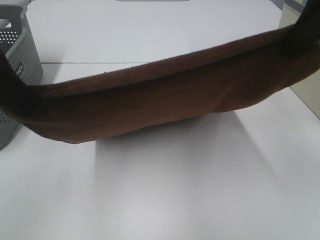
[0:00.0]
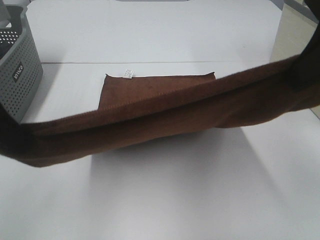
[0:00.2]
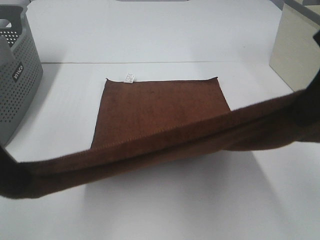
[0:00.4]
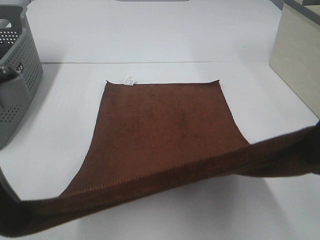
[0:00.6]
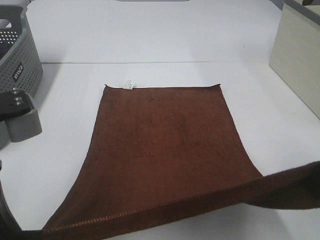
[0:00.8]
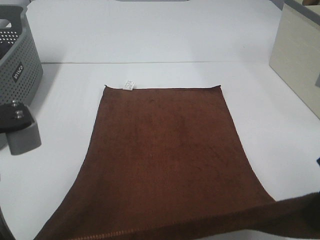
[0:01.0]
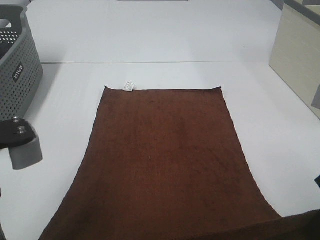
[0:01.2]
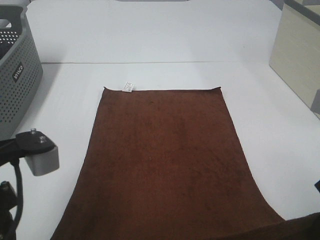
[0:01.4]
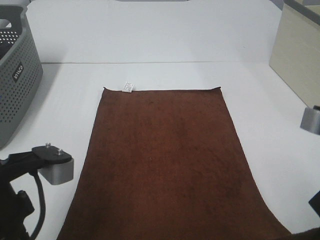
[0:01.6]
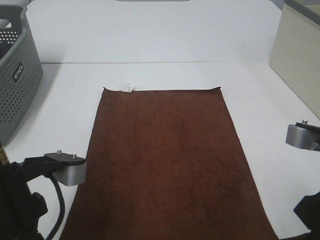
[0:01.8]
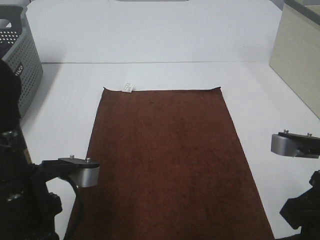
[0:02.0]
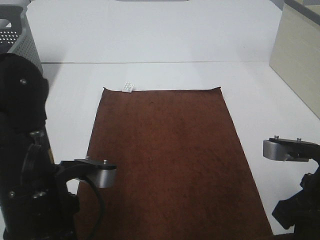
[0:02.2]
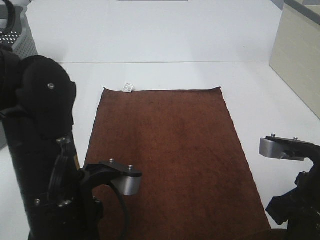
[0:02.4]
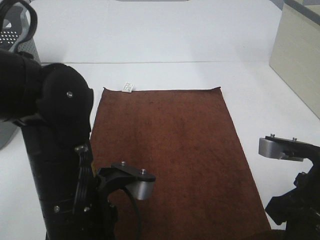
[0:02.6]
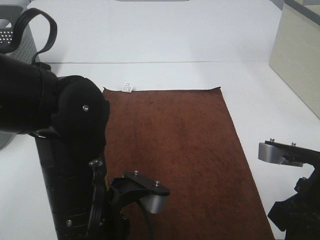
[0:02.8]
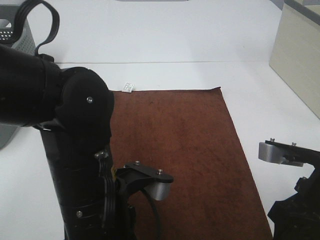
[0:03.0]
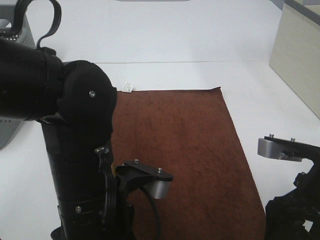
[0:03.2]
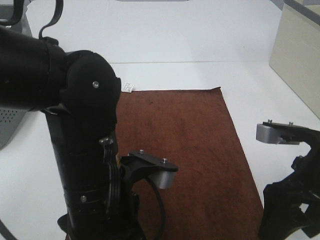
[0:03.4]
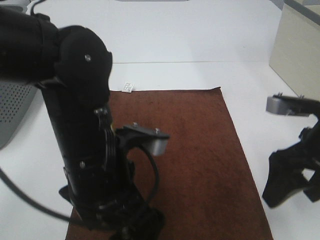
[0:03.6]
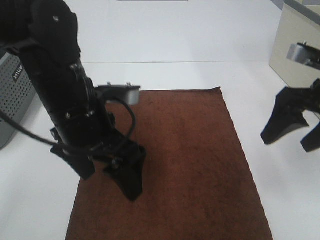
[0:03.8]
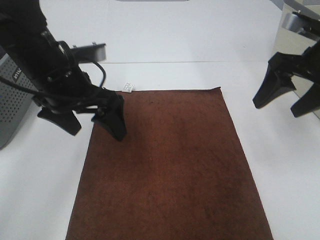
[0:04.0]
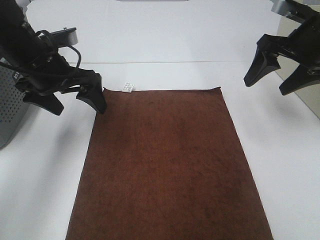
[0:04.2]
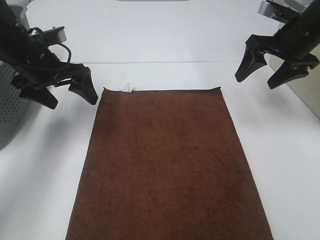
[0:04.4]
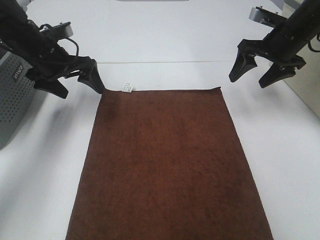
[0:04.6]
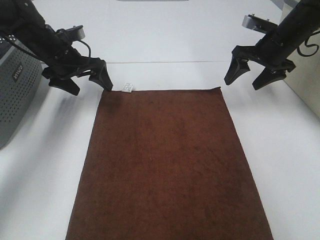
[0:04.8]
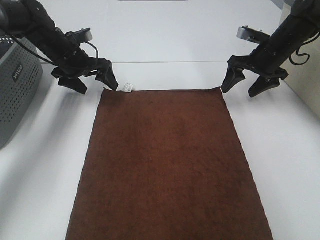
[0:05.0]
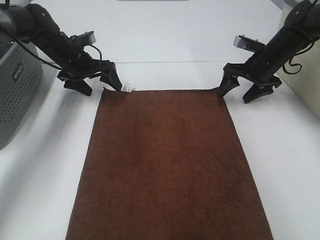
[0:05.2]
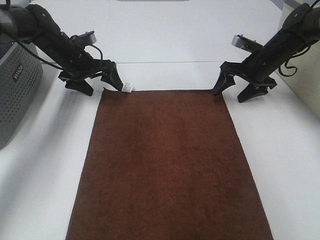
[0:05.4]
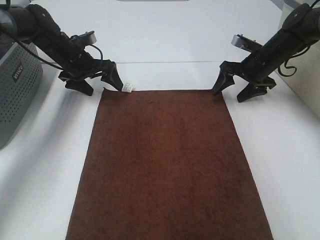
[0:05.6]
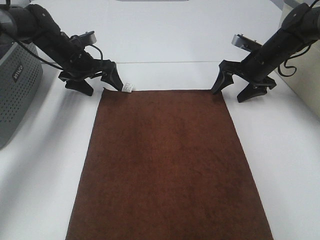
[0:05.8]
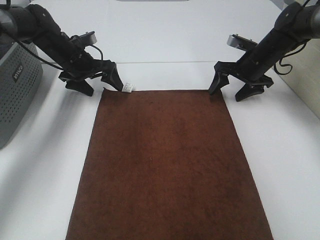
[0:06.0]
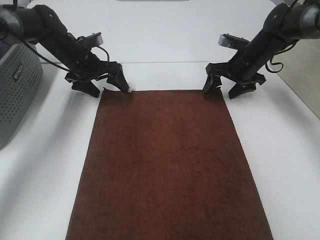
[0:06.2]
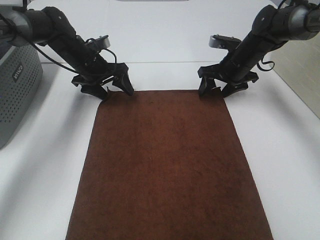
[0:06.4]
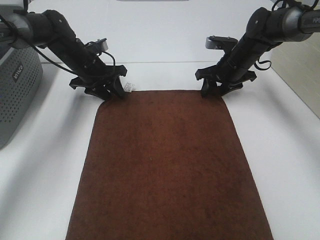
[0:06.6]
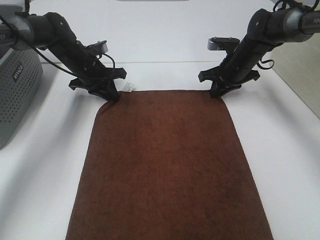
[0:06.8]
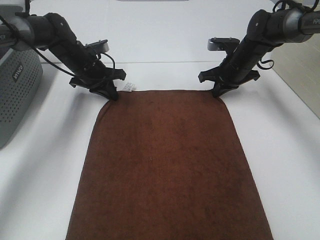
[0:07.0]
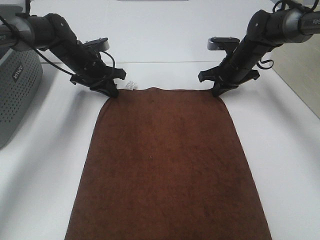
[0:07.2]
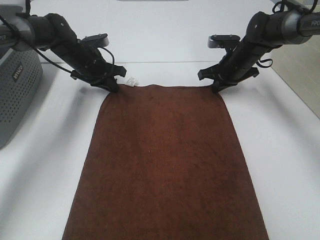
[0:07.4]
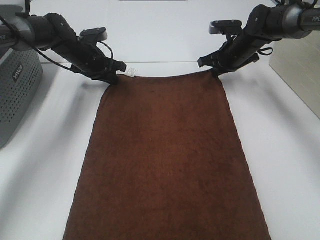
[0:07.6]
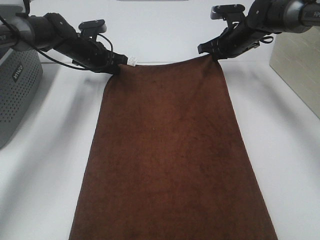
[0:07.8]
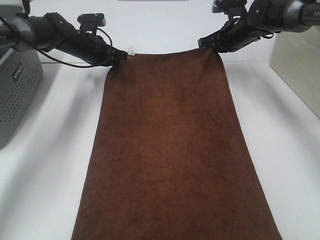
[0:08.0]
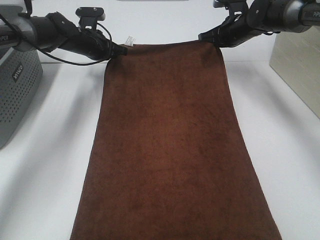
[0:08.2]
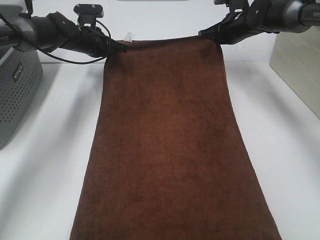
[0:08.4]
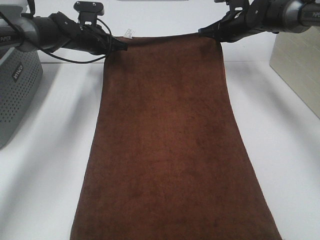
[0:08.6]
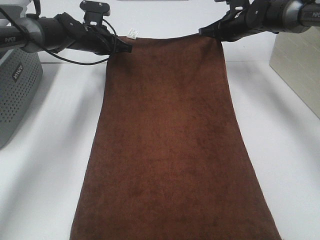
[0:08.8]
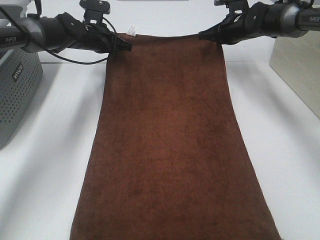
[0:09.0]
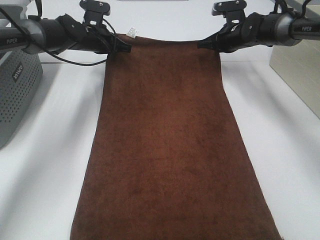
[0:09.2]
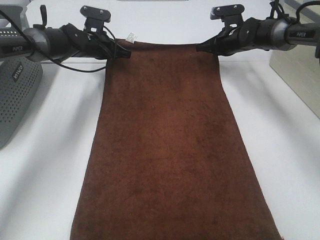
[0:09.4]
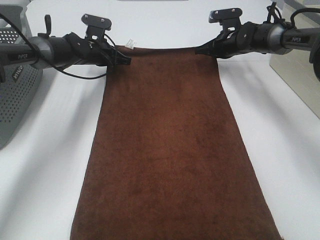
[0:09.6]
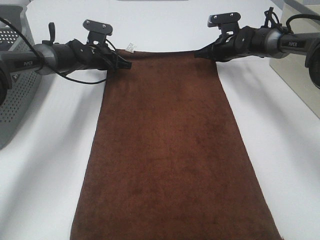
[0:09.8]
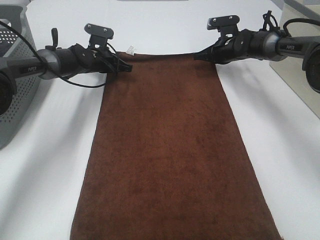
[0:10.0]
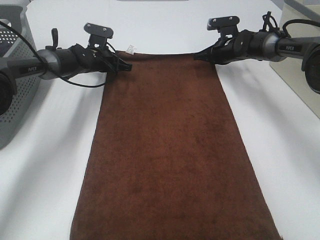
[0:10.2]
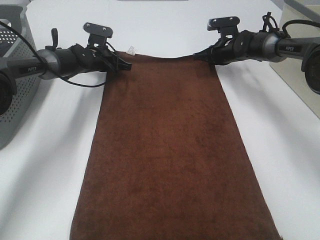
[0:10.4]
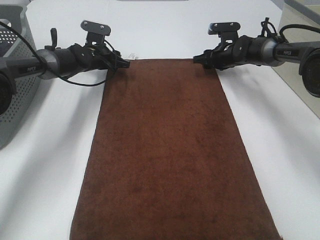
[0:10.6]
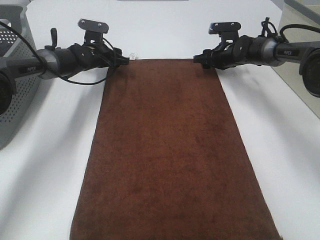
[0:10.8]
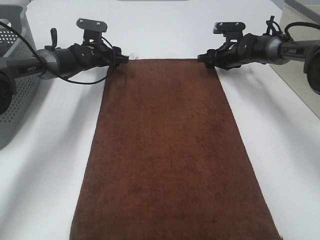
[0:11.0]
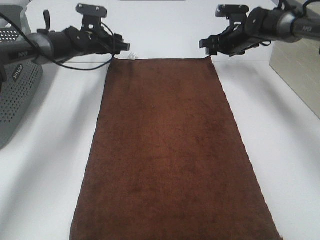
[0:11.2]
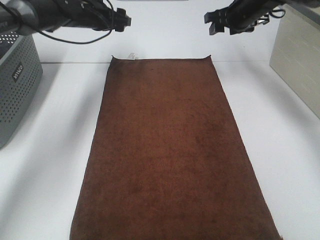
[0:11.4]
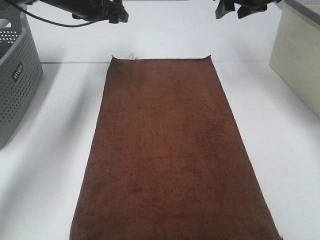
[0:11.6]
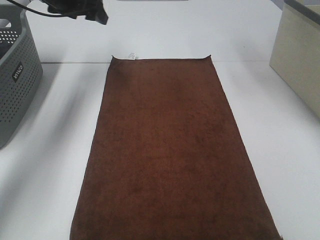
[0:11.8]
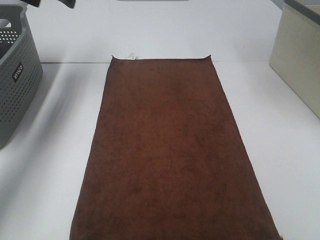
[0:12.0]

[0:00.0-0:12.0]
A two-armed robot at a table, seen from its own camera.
Task of the whole recording: Remove the towel and place it.
Step, 0:00.0 to 0:05.4: Left hand:adjust the brown towel.
Step, 0:00.0 to 0:05.4: Right hand:adjust the brown towel.
0:00.0 to 0:01.6: The two grippers go some 15 cm downward and backward.
0:01.6 to 0:03.0: The left gripper shifts approximately 10 cm to the right, and opens; the right gripper shifts roughly 5 cm downward, and opens its fingers.
0:03.0 to 0:04.4: The left gripper moves forward and to the left, approximately 30 cm, and opens its fingers, while the right gripper moves forward, approximately 25 cm.
0:04.4 to 0:06.0: The left gripper is displaced forward and downward by approximately 15 cm, while the right gripper goes some 15 cm downward and forward.
0:06.0 to 0:07.6: The left gripper closes up; the right gripper ends up about 5 cm from where it was, and closes its fingers.
0:09.0 to 0:10.4: The grippers both shift downward by approximately 5 cm.
0:10.4 to 0:12.0: The left gripper goes about 25 cm upward and to the left, and opens its fingers, while the right gripper goes about 35 cm upward and backward, and opens its fingers.

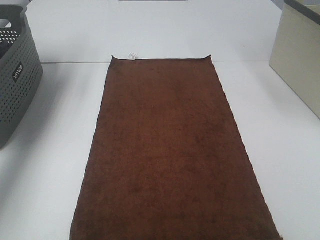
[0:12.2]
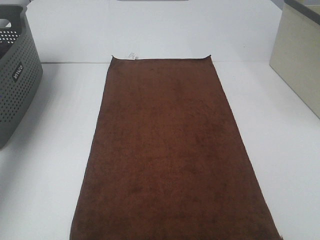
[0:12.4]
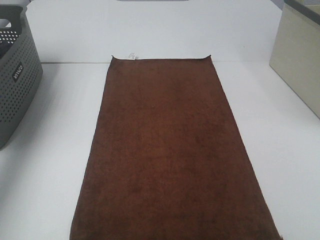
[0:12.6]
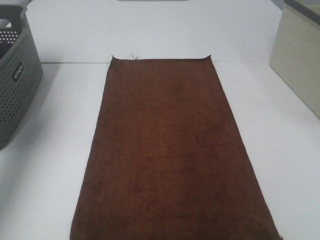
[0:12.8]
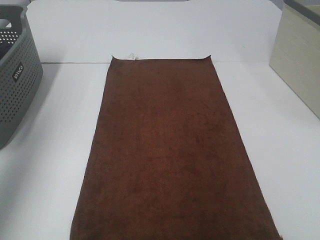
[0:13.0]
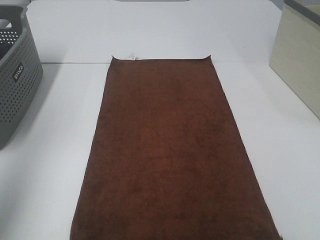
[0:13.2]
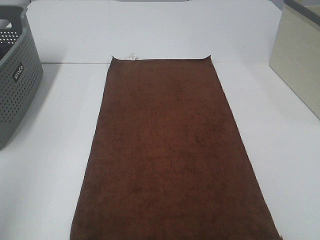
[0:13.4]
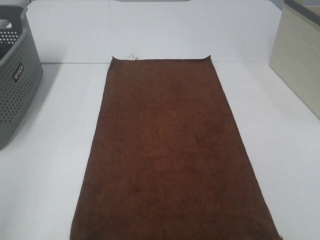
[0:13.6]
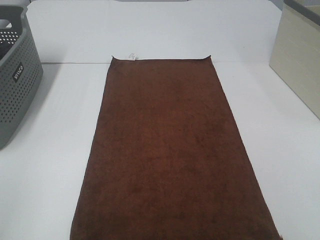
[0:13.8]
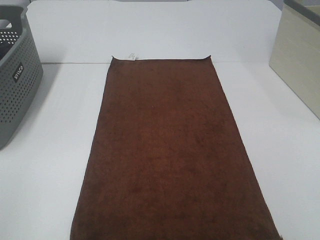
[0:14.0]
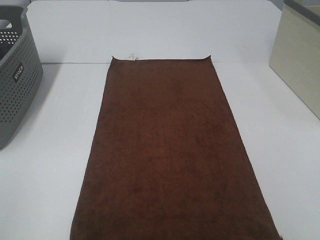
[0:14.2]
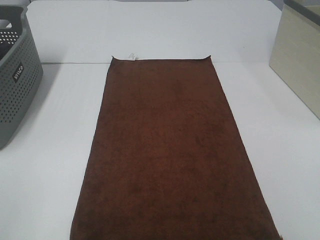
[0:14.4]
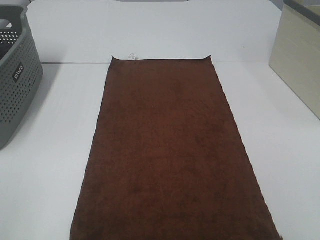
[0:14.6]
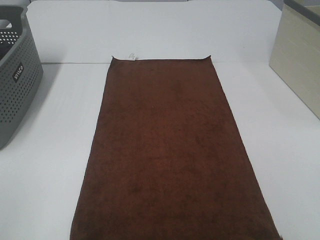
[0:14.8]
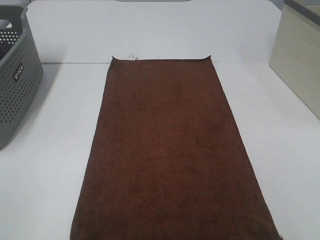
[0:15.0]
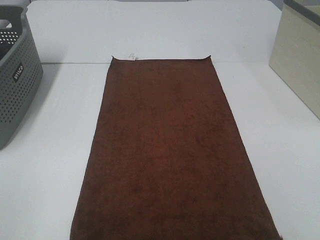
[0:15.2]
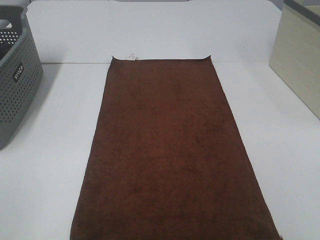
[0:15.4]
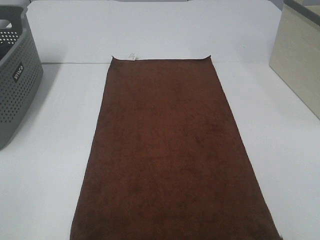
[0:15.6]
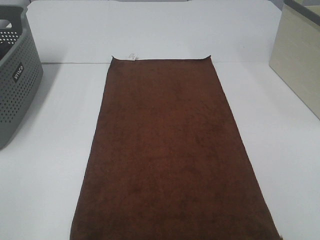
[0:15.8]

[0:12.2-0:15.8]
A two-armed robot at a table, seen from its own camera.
Task of the whole recording: Remove the towel and place it.
0:12.2 to 0:14.0: The left gripper heads backward, covering about 50 cm.

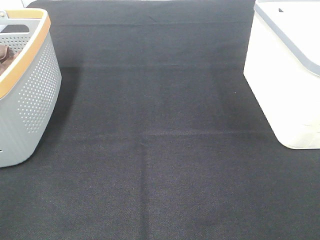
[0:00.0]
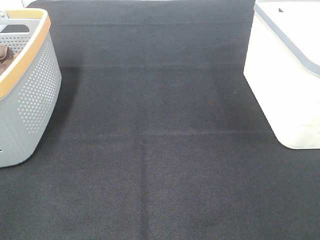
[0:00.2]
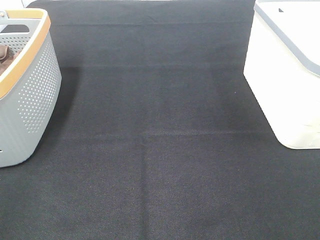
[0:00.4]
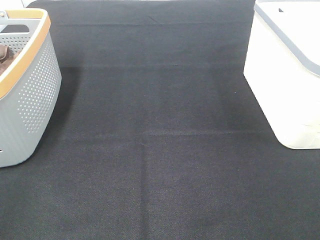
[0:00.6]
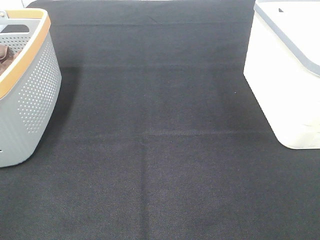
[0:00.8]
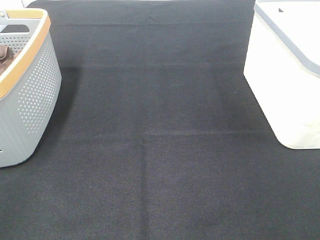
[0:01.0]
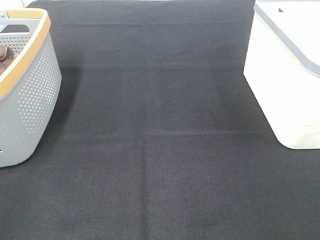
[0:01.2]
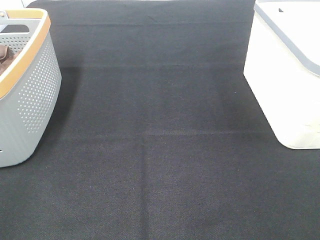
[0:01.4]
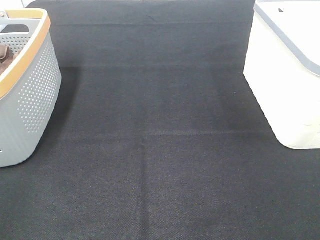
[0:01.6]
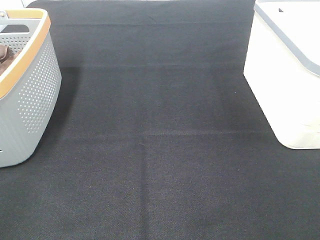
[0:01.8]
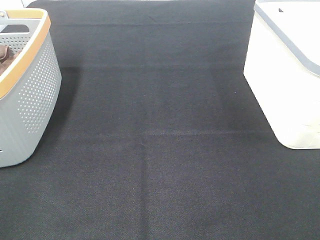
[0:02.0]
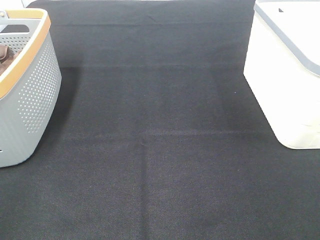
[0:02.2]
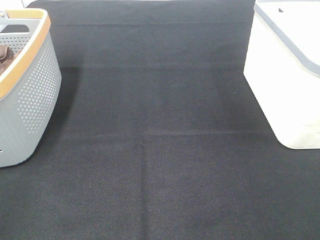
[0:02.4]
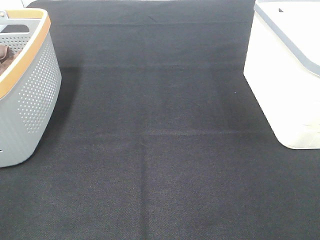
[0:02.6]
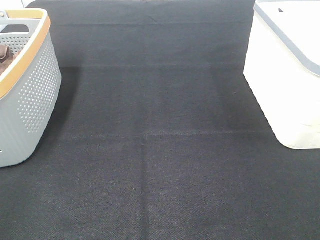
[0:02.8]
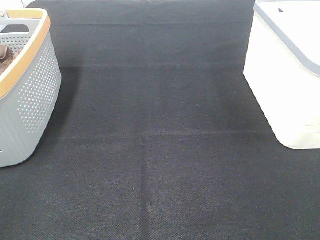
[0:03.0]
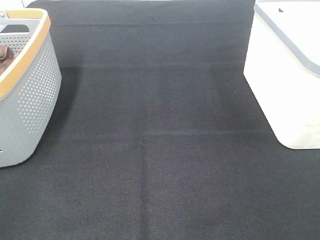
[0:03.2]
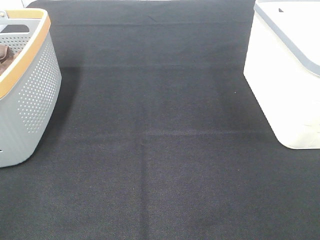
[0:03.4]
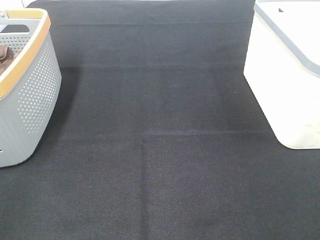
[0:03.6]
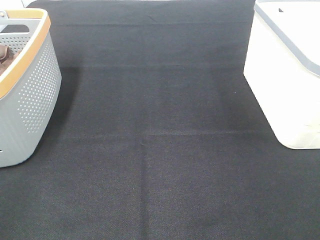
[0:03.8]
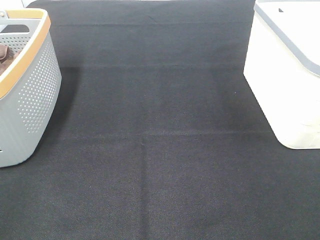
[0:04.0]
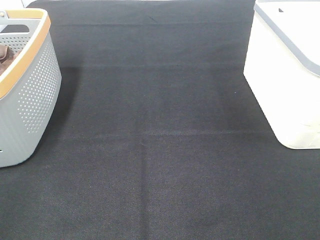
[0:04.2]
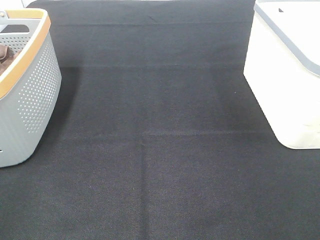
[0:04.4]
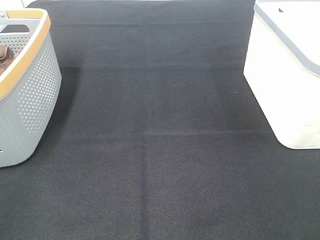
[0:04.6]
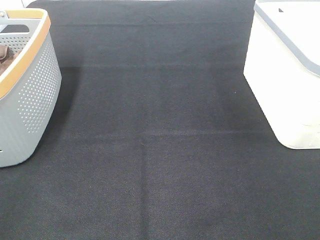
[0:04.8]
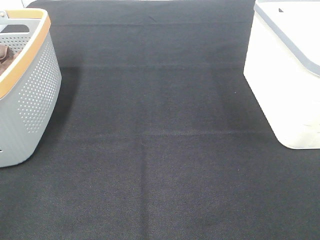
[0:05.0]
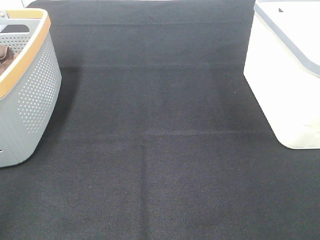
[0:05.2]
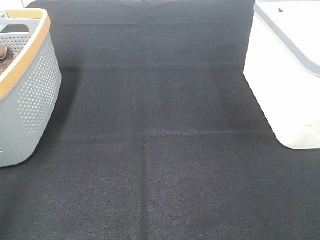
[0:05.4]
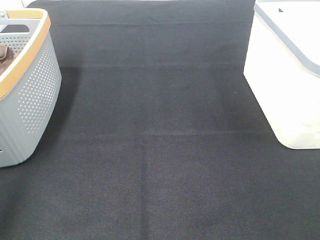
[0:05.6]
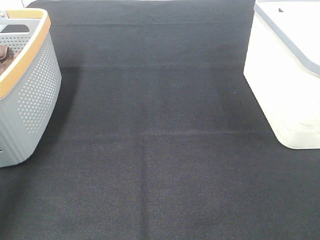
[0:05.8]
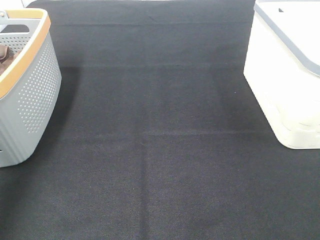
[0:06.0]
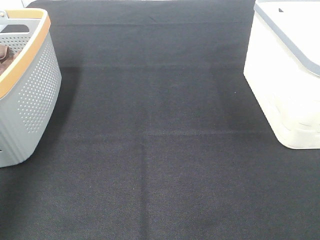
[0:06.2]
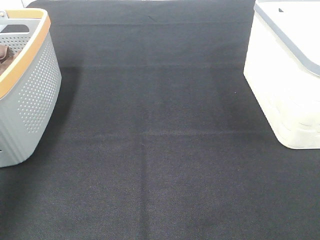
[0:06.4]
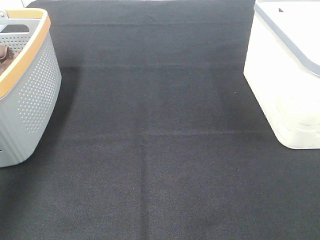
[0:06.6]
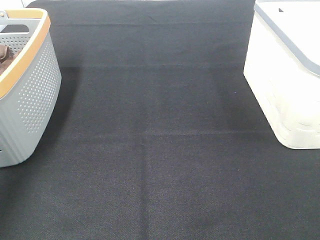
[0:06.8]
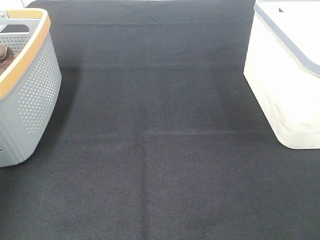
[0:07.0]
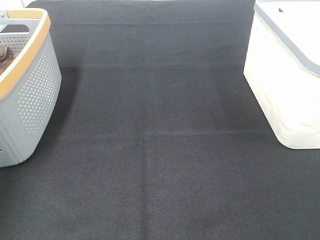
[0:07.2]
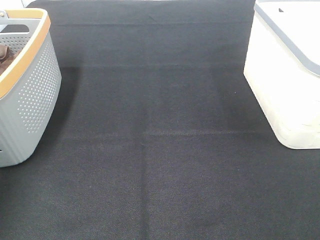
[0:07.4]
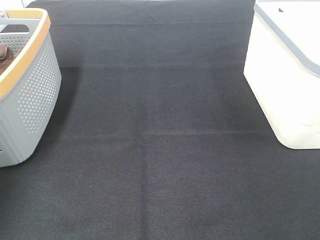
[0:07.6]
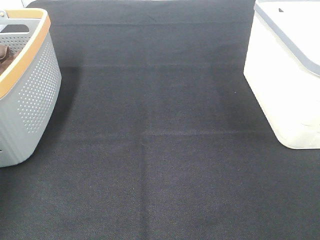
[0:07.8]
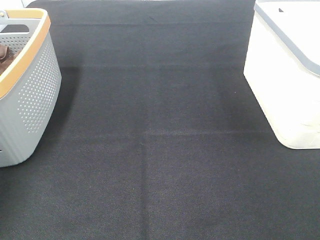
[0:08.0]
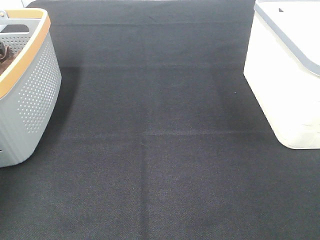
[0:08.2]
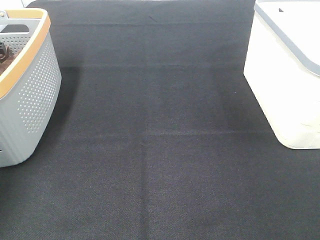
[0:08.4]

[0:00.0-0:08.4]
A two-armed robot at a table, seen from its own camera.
Task of the whole recording: Remove the towel and place it.
0:00.0 to 0:04.2: The two grippers keep their place.
